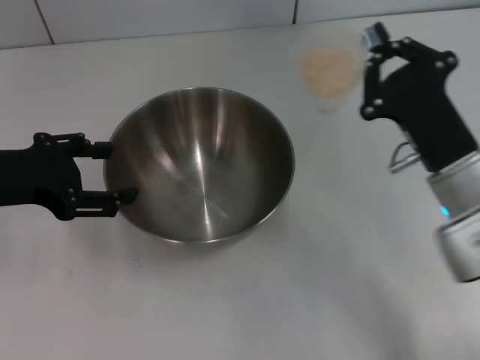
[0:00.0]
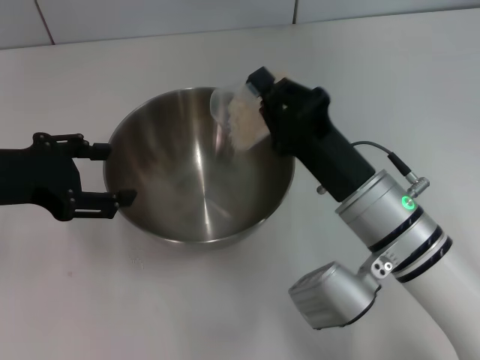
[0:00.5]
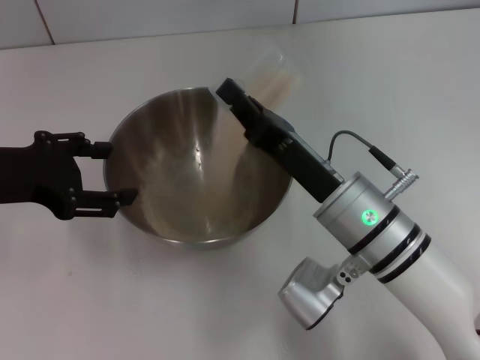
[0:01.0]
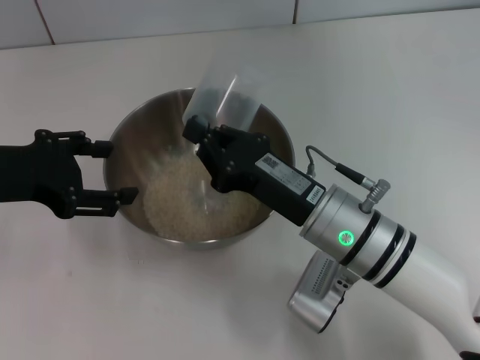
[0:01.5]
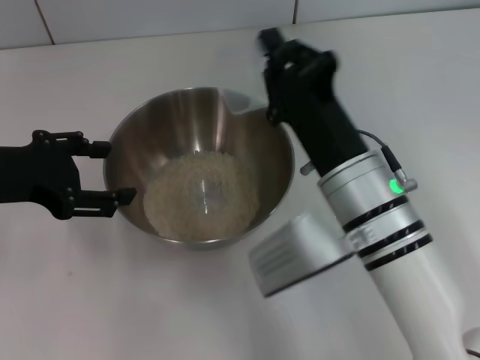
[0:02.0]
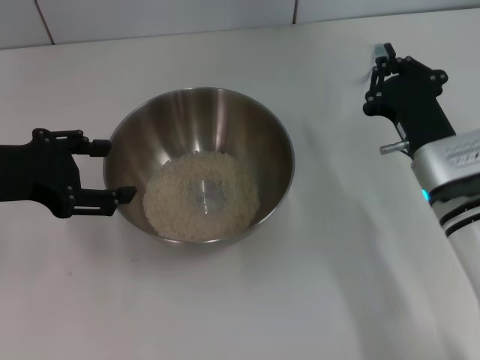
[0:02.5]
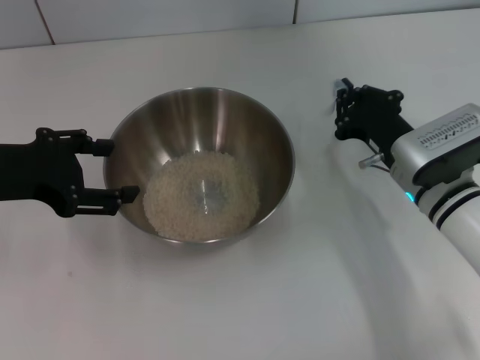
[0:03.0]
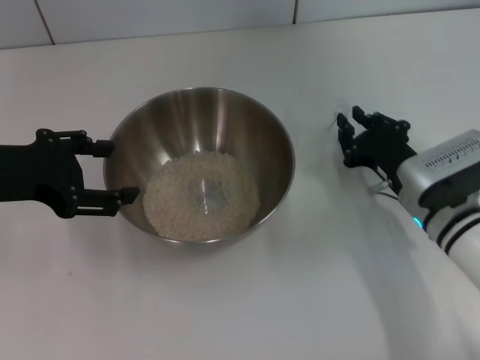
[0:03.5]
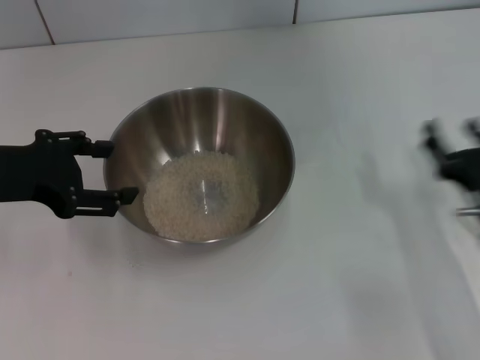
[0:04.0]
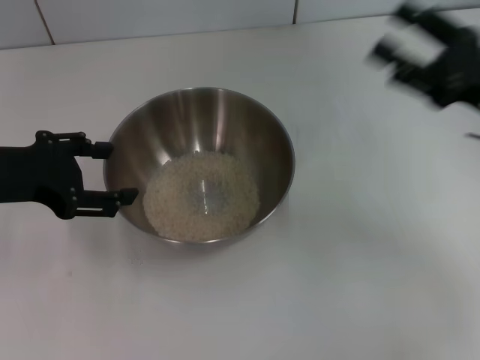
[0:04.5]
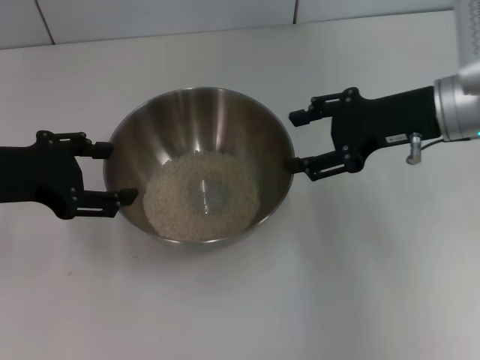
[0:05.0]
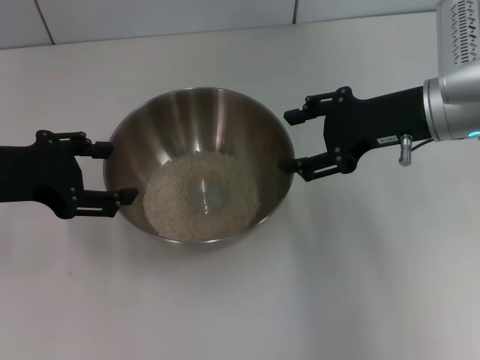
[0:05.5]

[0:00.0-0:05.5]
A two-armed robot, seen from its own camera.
Task of the whole recording: Place the bowl in the middle of the table with one hand and pour the rice from the grain cup into it with the other hand.
Step, 0:00.0 to 0:02.0: Pour the rice from the cup into the bowl with the right gripper.
Step, 0:02.5 to 0:03.5: Place the cup on the table with the right gripper.
0:00.0 to 0:02.0: The right gripper moves to the left, about 10 cm.
0:02.0 to 0:03.5: The right gripper shifts approximately 15 cm to the right and downward.
0:03.5 to 0:05.5: The right gripper heads upward, covering approximately 15 cm, and opens its fingers.

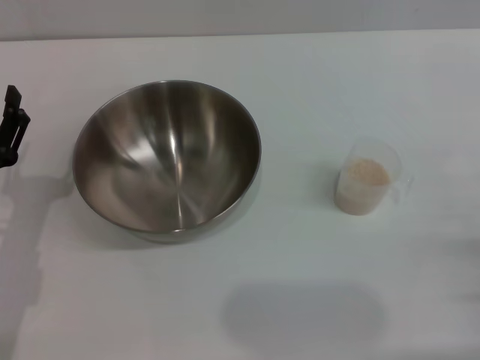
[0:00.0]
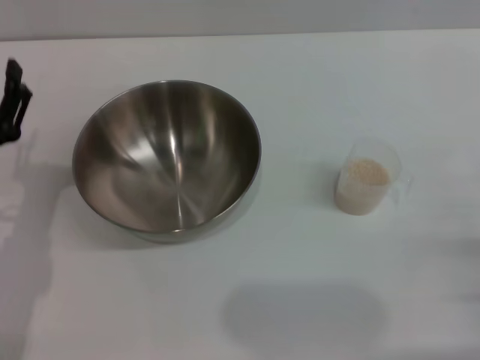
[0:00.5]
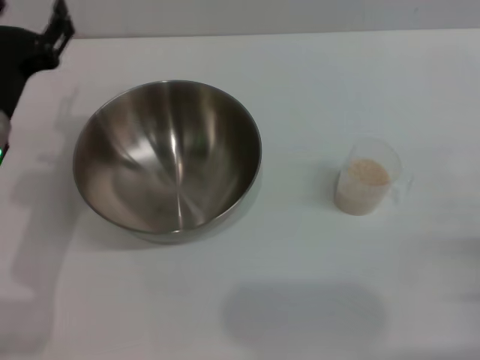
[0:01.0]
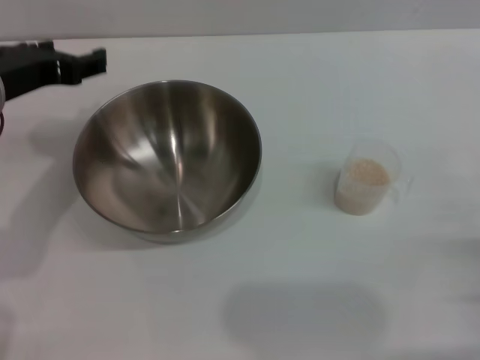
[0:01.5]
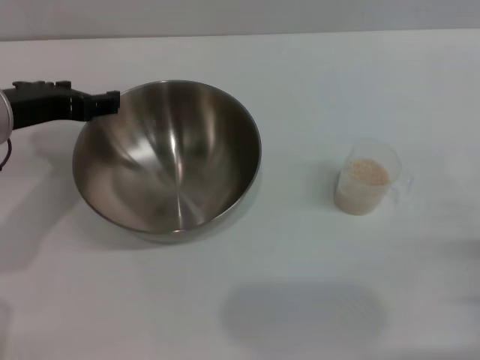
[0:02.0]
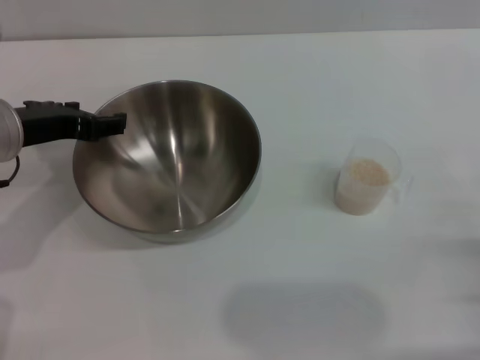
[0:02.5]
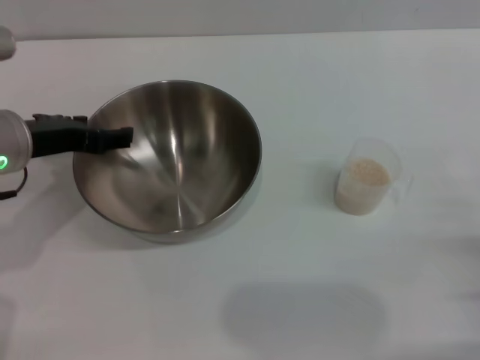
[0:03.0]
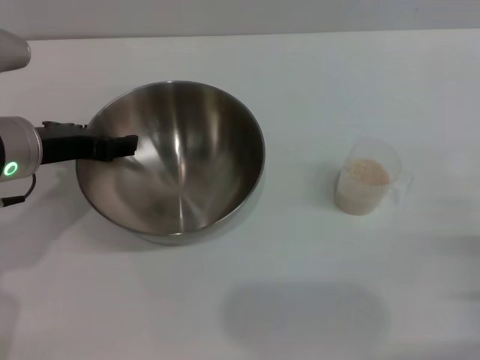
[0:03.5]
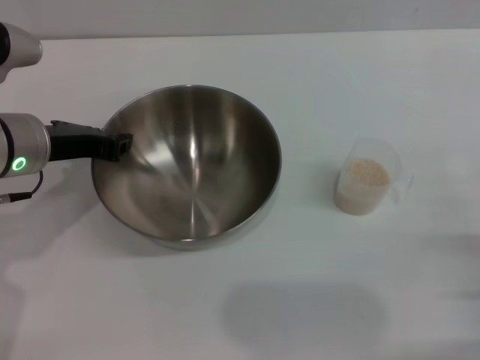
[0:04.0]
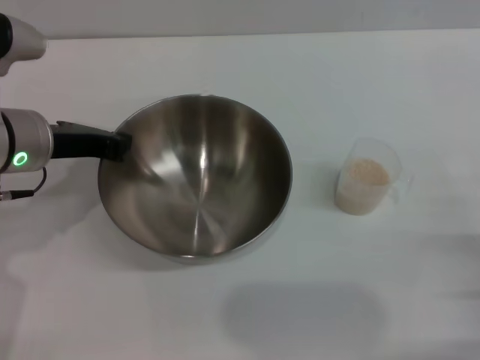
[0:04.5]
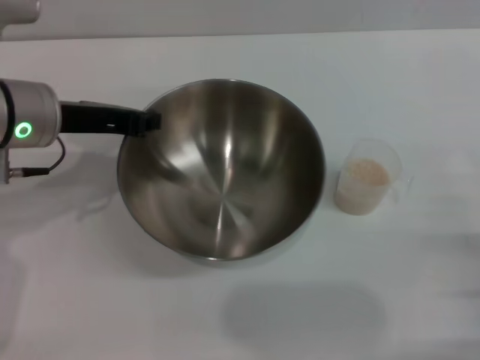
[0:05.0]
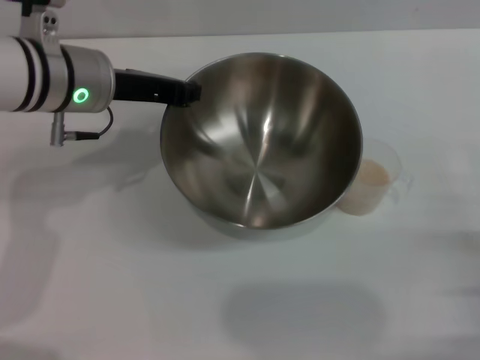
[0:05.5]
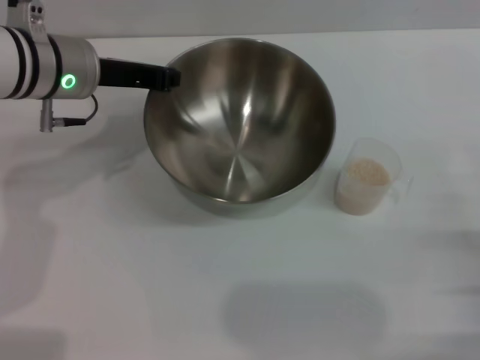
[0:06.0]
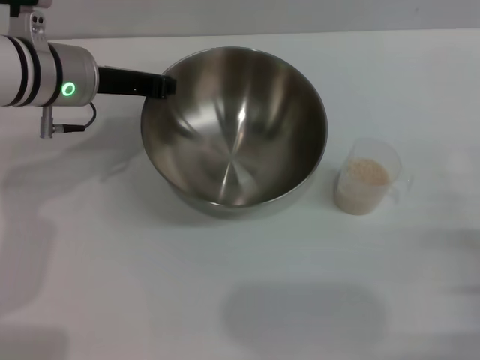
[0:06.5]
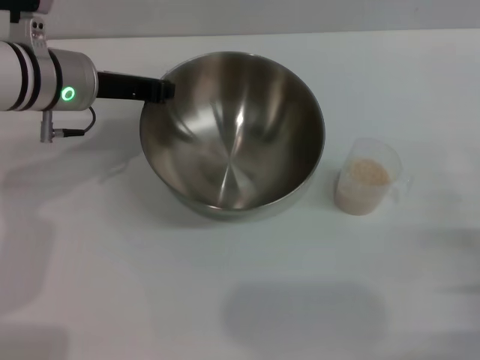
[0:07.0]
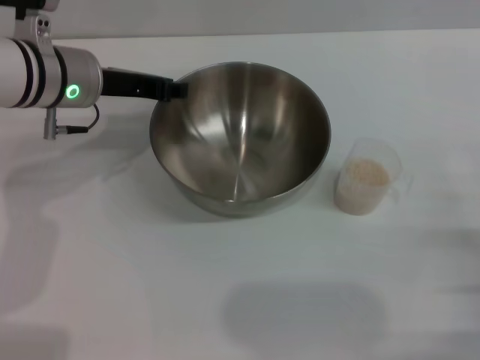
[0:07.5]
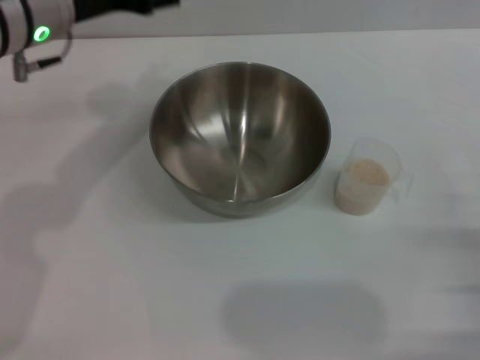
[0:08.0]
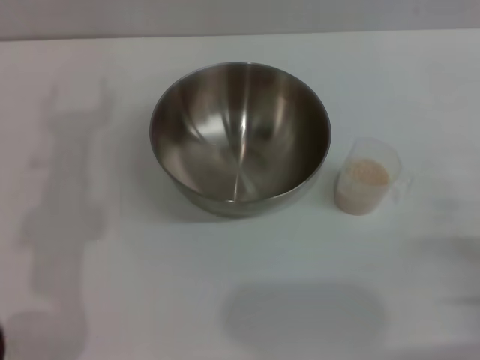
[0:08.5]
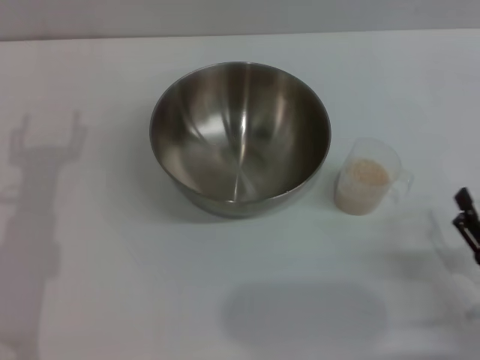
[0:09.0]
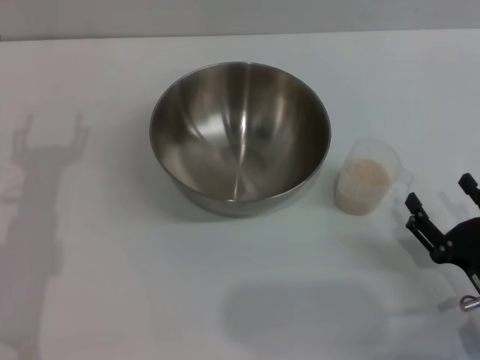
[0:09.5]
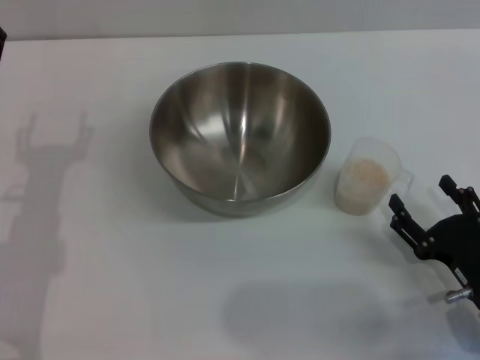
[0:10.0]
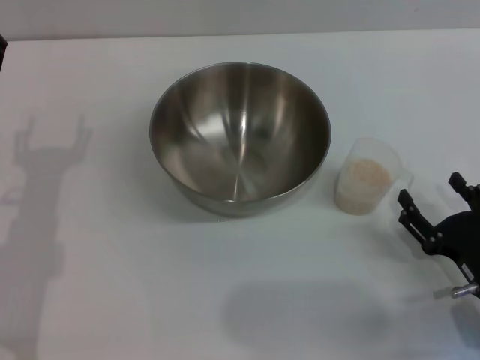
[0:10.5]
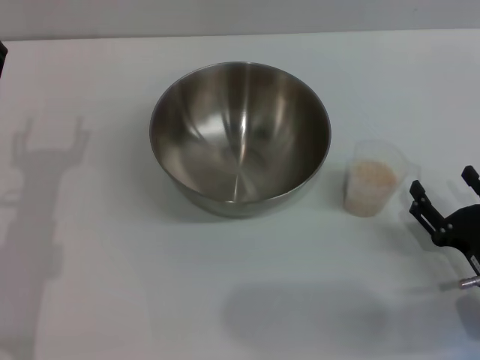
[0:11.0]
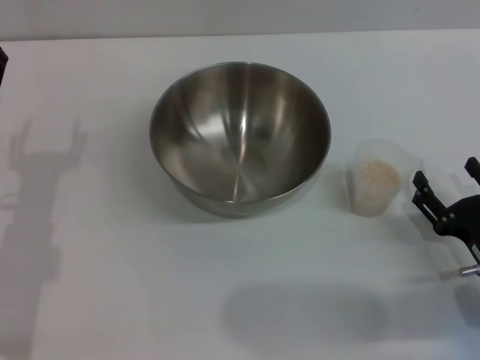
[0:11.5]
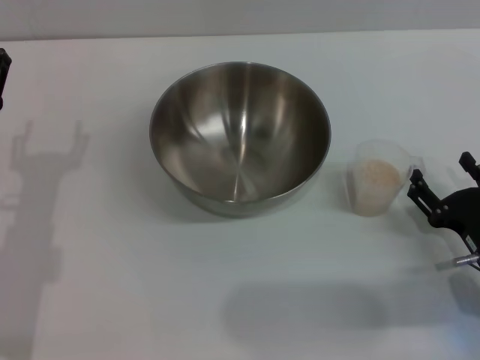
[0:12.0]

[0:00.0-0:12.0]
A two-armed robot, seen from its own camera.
Task of the whole recording: Place the bowl in the middle of the table with one hand and pour the rice from the grain cup into it with the other hand.
Step, 0:00.0 to 0:05.0: Pick up the bowl with the left gripper.
Step, 0:05.5 to 0:07.5: Place the bowl in the center of view with the left gripper.
0:00.0 to 0:02.0: The left gripper is displaced upward and forward by about 15 cm.
0:02.0 to 0:04.0: The left gripper closes.
0:04.0 to 0:06.0: The left gripper shifts about 5 cm forward, and closes its fingers.
0:06.0 to 0:08.0: The left gripper goes roughly 5 cm upward, and opens its fingers.
0:08.0 to 0:10.0: The left gripper shifts about 20 cm downward, backward and to the left, while the right gripper shifts roughly 5 cm to the left.
0:10.0 to 0:12.0: The grippers make only small movements.

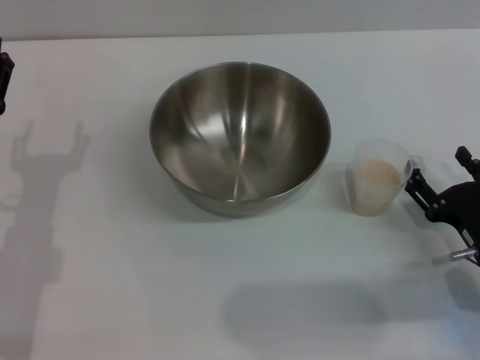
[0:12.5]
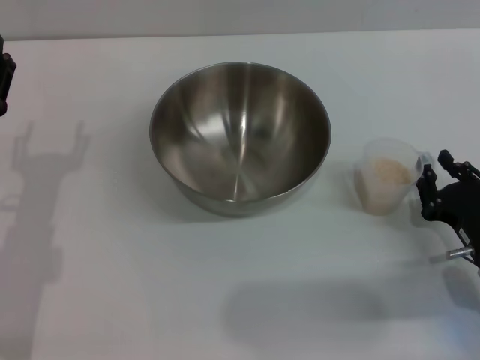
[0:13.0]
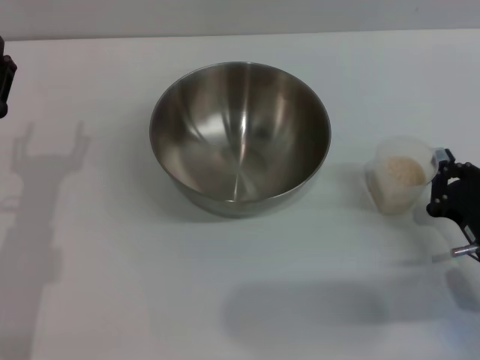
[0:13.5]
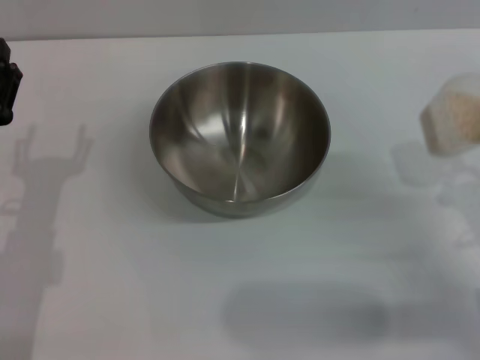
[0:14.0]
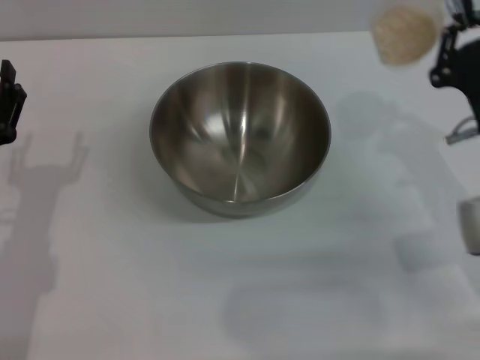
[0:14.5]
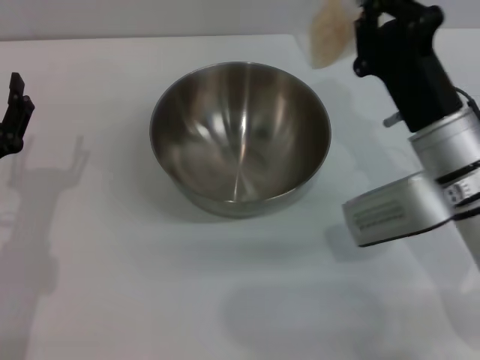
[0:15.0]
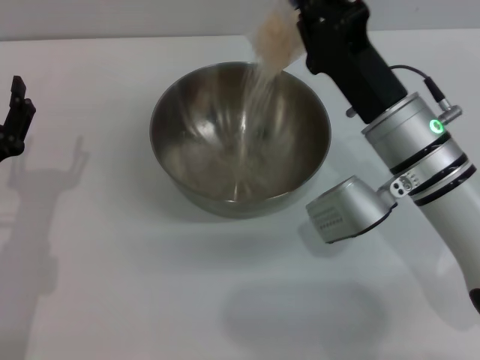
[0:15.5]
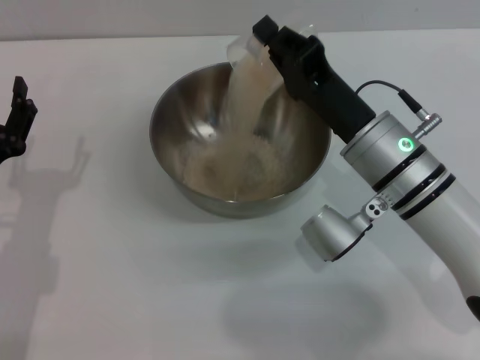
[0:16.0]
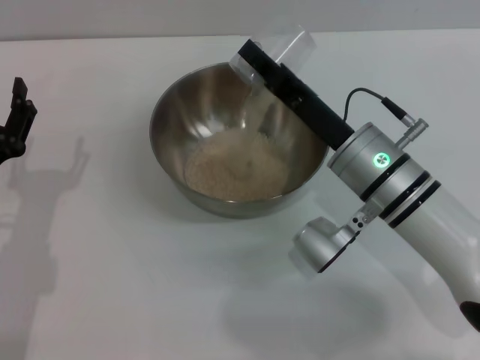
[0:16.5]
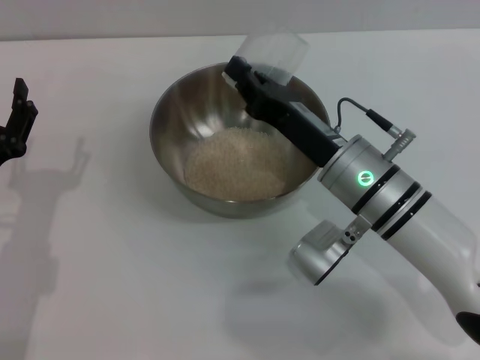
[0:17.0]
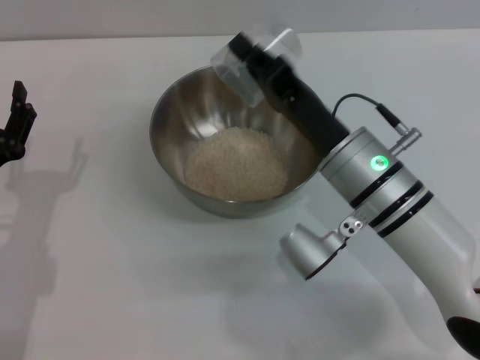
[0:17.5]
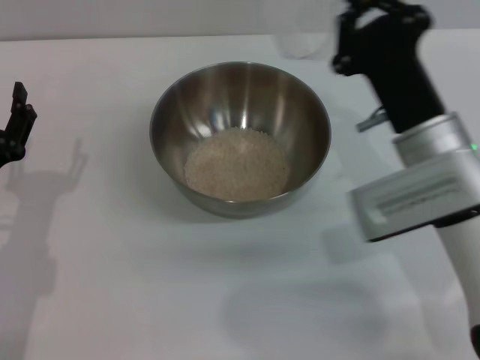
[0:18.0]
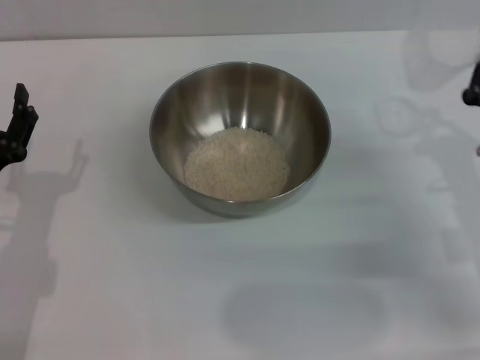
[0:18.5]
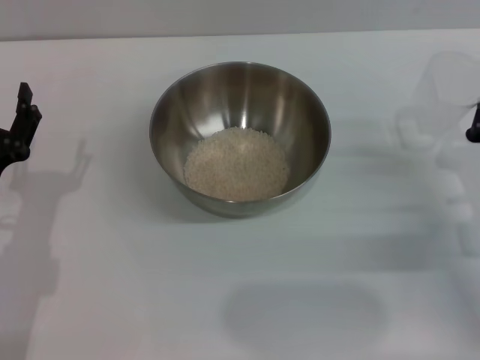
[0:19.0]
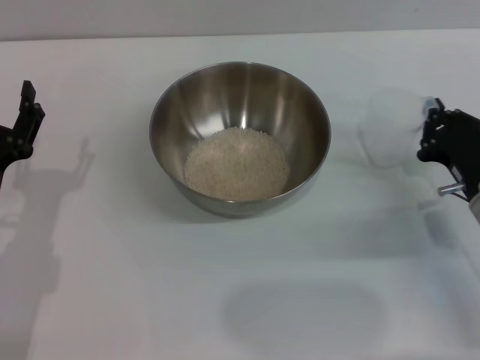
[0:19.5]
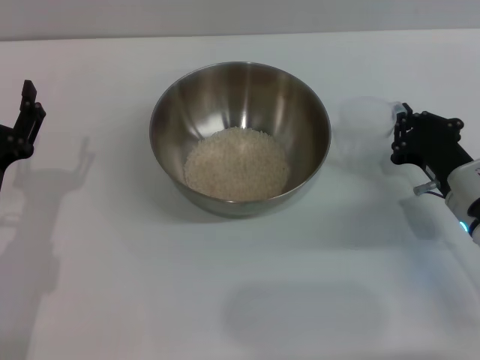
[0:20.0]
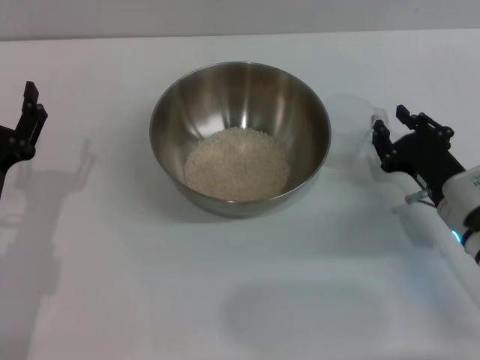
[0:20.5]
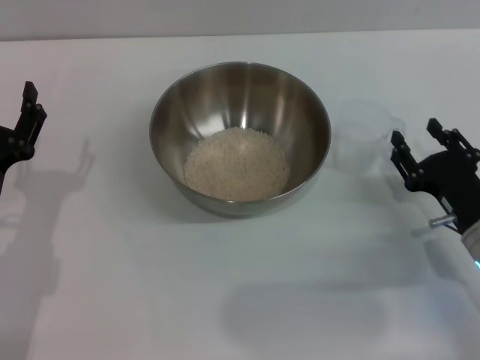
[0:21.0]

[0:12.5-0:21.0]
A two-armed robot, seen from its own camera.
Task of the whole recording: Place the bowl in the middle of the table with one hand and pour the rice from the grain cup into it with the other hand.
Step, 0:14.0 to 0:16.5: Pour the rice from the cup into the bowl with the right gripper.
0:12.5 to 0:14.5: The right gripper goes roughly 10 cm upward and forward, and closes up.
0:14.5 to 0:16.5: The right gripper is displaced to the left by roughly 10 cm.
0:16.5 to 0:19.0: The right gripper goes roughly 15 cm to the right.
0:19.0 to 0:21.0: The right gripper opens.
